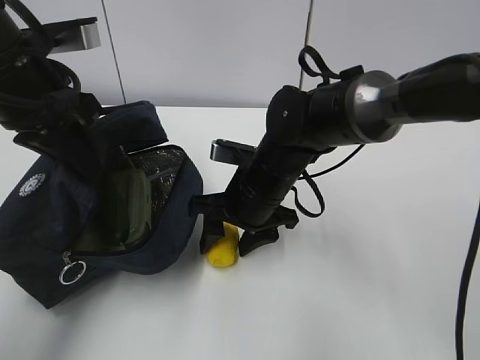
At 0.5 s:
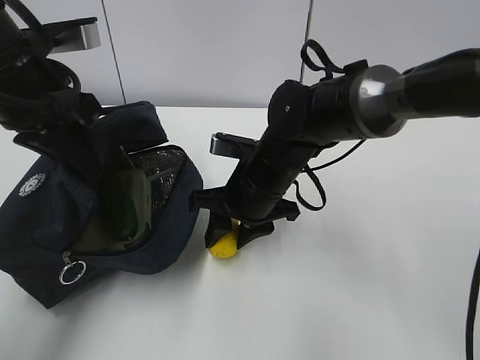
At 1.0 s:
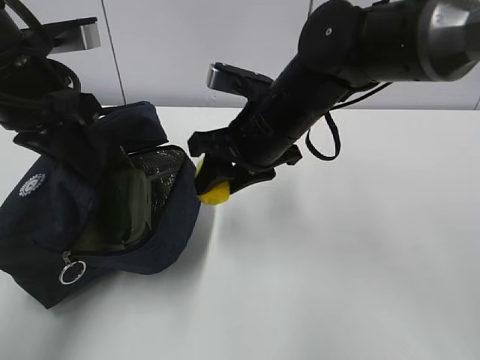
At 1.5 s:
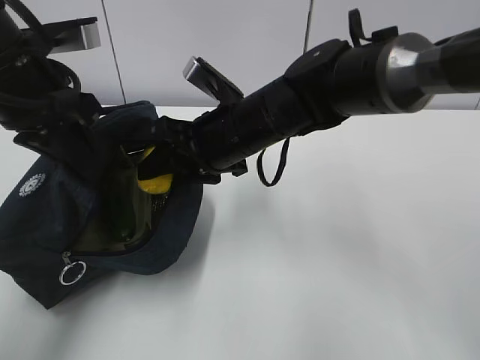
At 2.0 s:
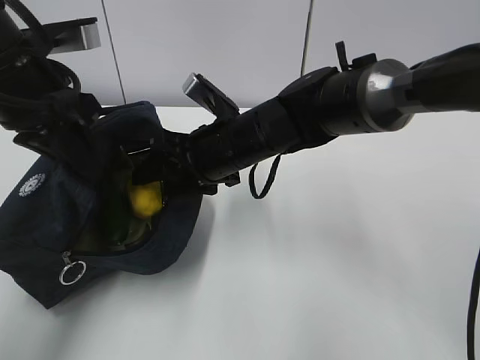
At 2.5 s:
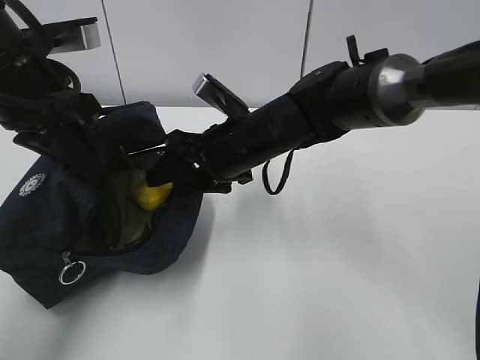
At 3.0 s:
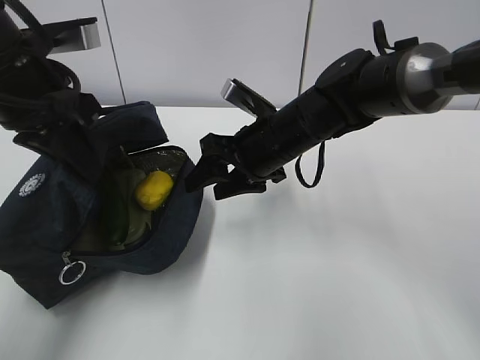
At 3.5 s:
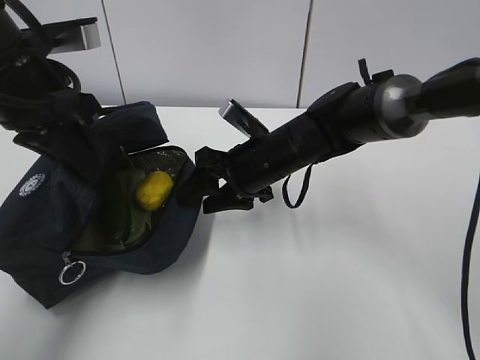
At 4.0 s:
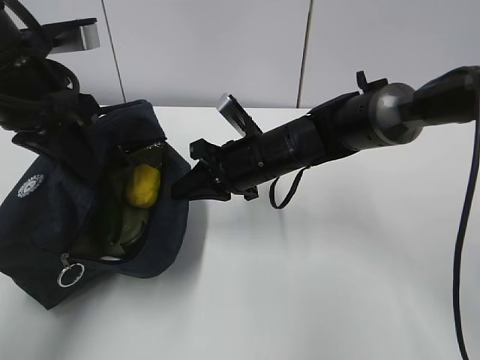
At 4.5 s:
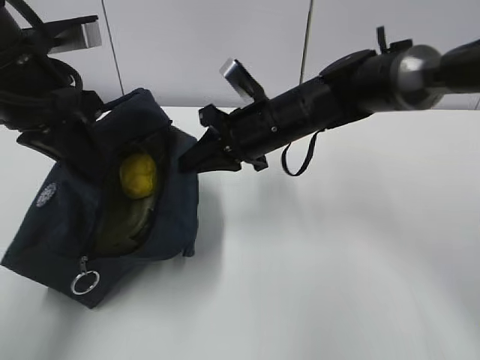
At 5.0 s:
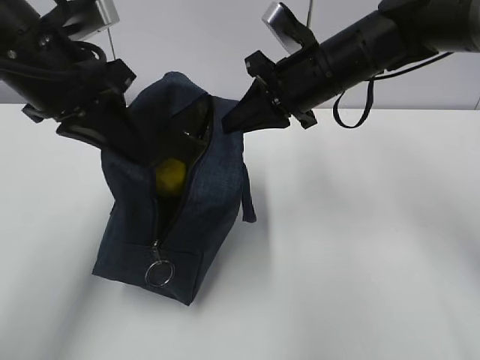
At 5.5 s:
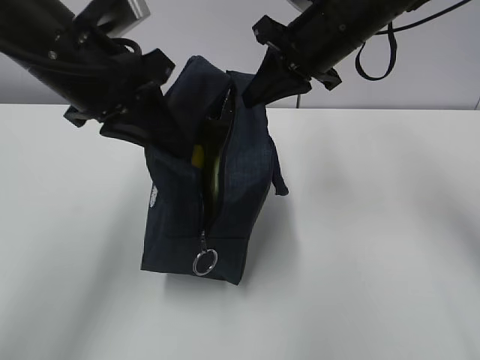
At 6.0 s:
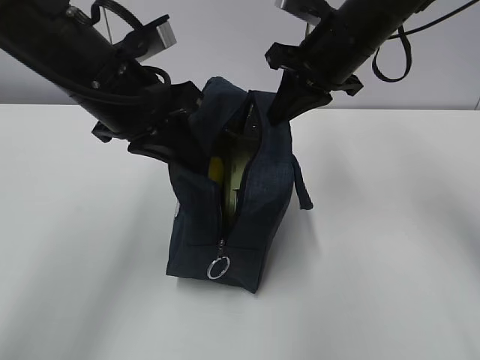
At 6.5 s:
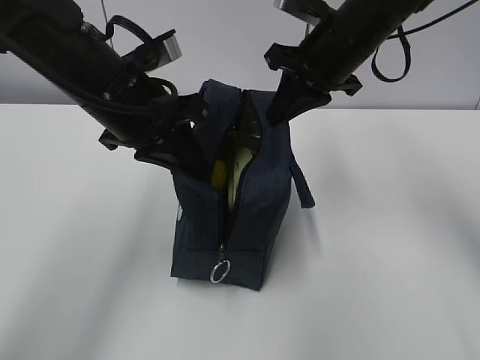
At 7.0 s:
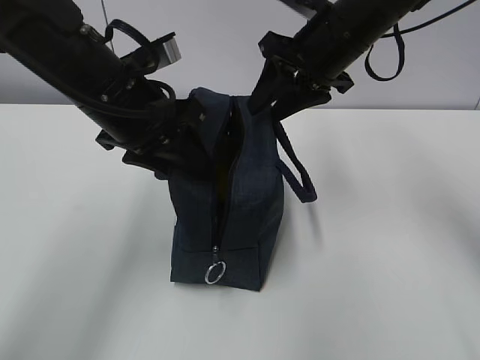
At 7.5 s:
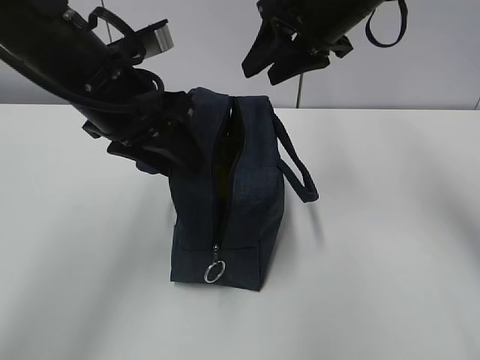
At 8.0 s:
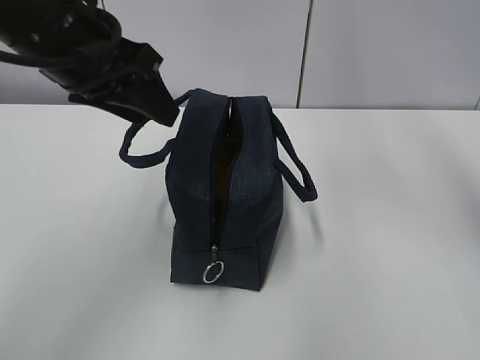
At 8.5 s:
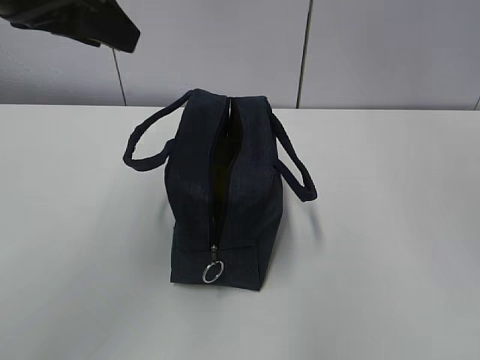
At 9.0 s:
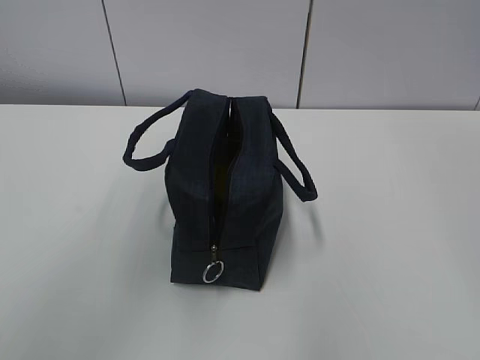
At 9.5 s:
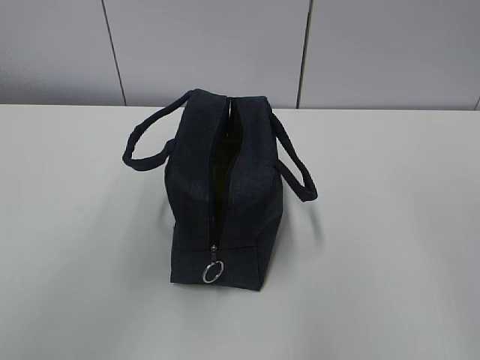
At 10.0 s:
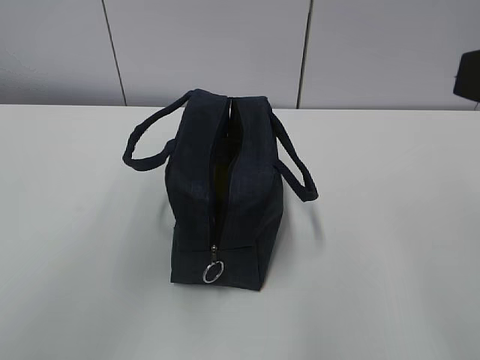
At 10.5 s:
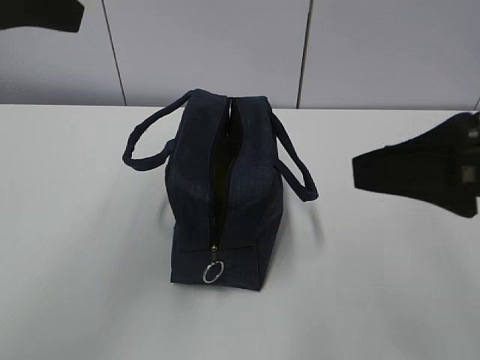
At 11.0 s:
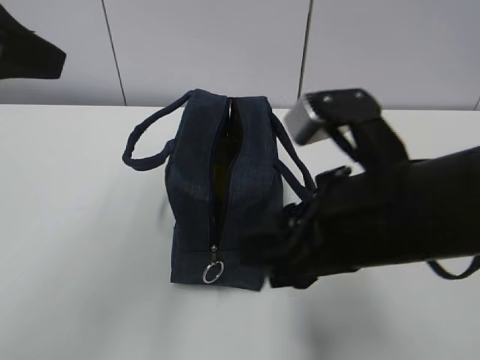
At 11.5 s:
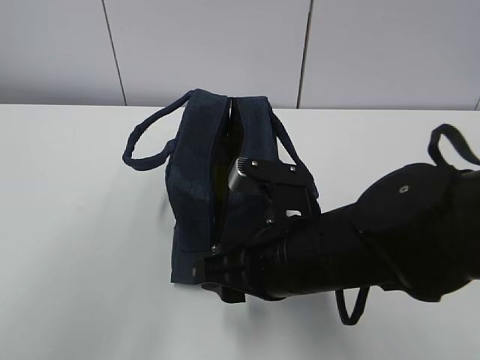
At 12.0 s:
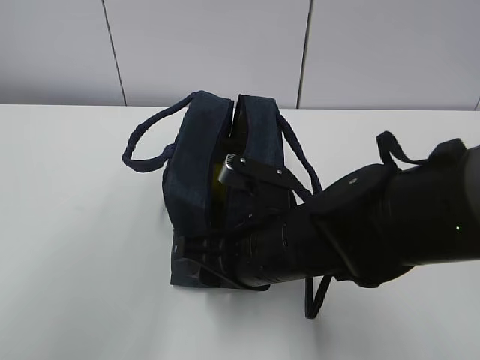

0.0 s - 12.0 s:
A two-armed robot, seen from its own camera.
2.0 s - 4.0 s: The right gripper moves about 5 cm, and closes its fingers.
4.0 s - 6.0 s: The left gripper heads to the right, covering roughly 5 cm. The right gripper shifts about 15 cm upward and to the right.
6.0 s - 8.0 s: The right gripper shifts approximately 15 cm upward, and opens its fingers. Meanwhile the left gripper shifts roughly 5 cm upward, and opens its fingers.
8.0 s - 10.0 s: The left gripper moves upward and backward, some 10 cm; the right gripper heads backward, covering roughly 30 cm.
10.0 s - 12.0 s: The right gripper heads downward, to the left and forward, covering about 30 cm. Meanwhile the left gripper travels backward by roughly 10 cm.

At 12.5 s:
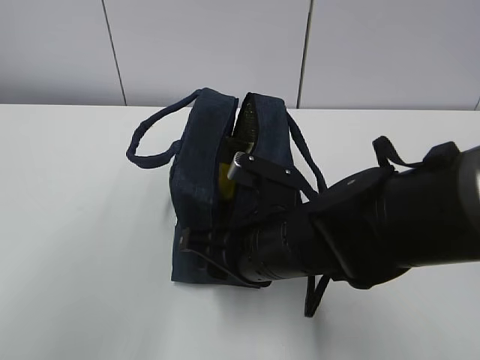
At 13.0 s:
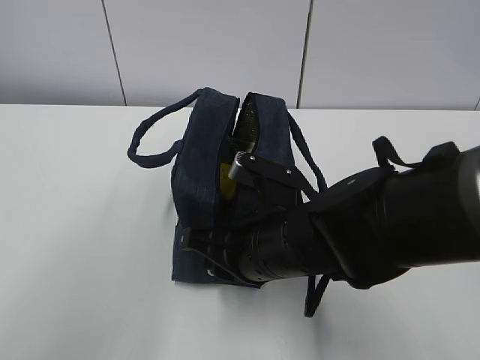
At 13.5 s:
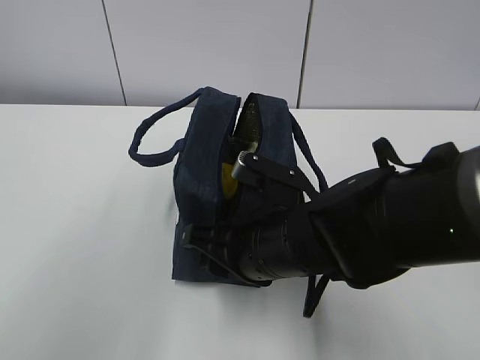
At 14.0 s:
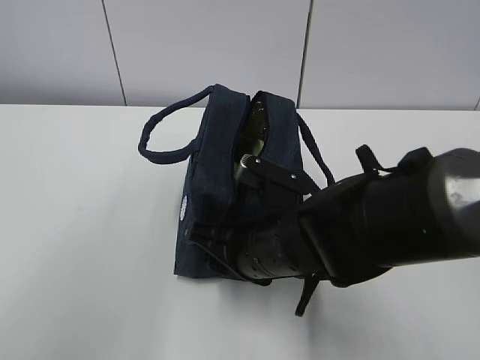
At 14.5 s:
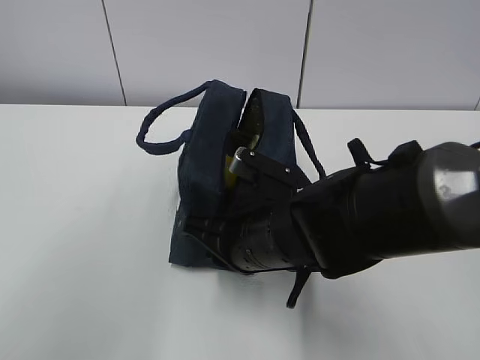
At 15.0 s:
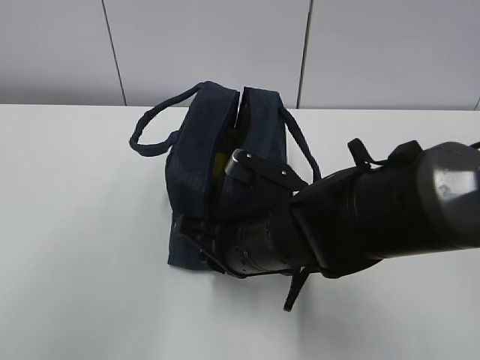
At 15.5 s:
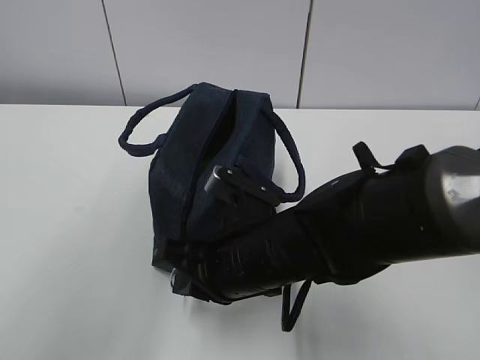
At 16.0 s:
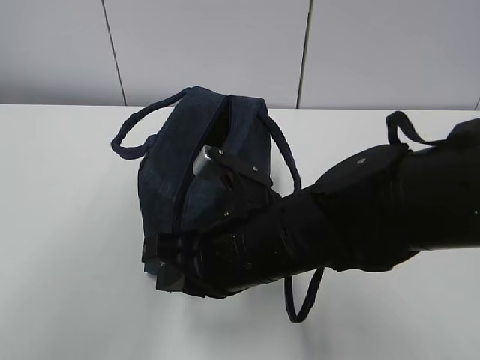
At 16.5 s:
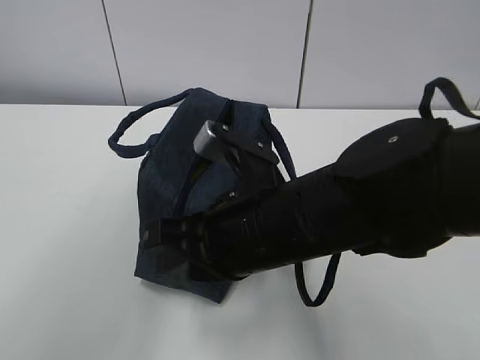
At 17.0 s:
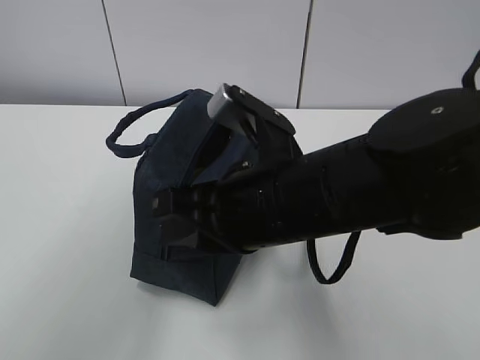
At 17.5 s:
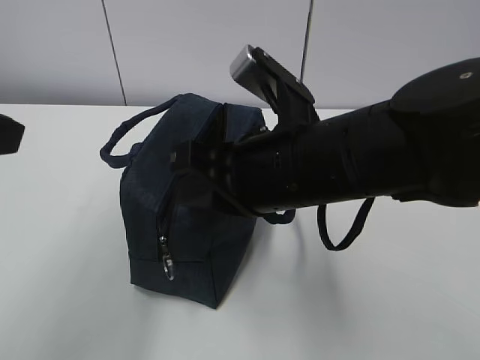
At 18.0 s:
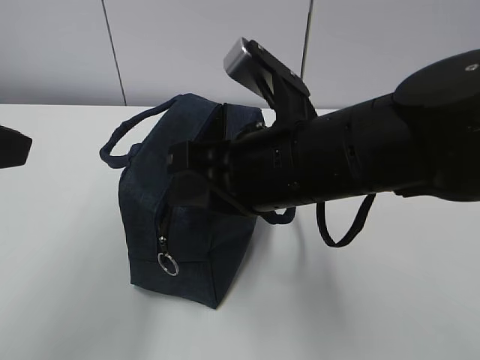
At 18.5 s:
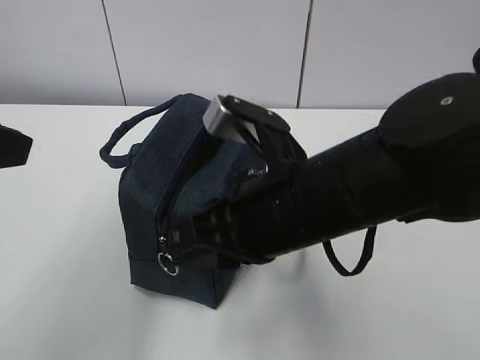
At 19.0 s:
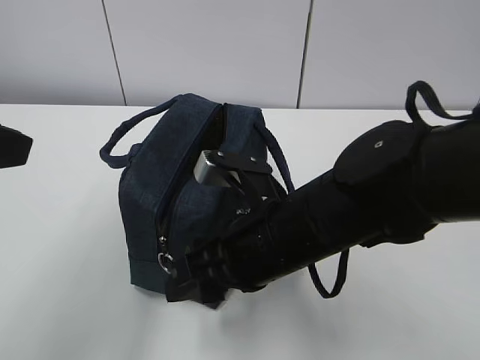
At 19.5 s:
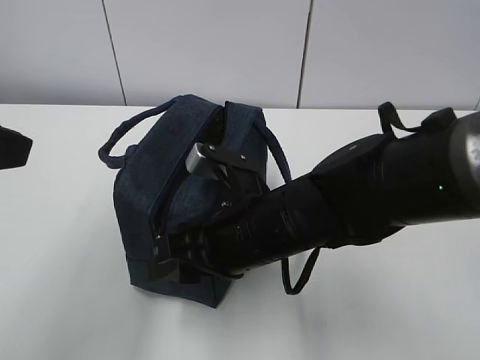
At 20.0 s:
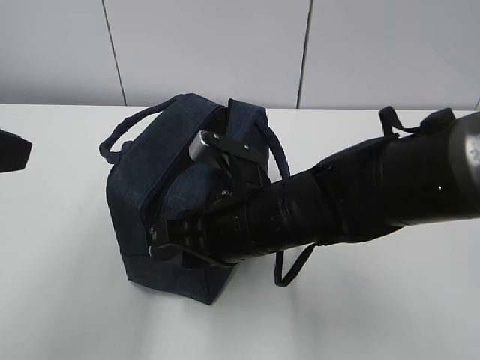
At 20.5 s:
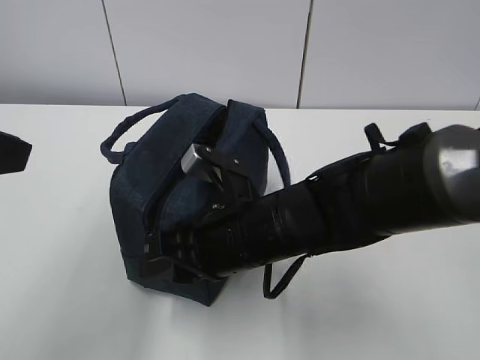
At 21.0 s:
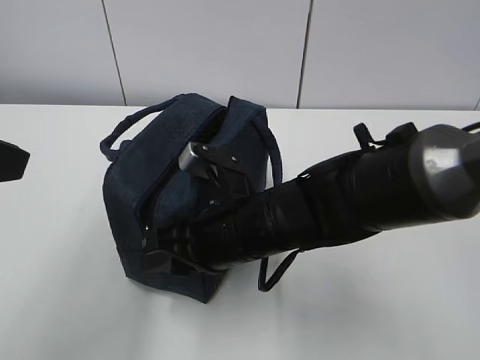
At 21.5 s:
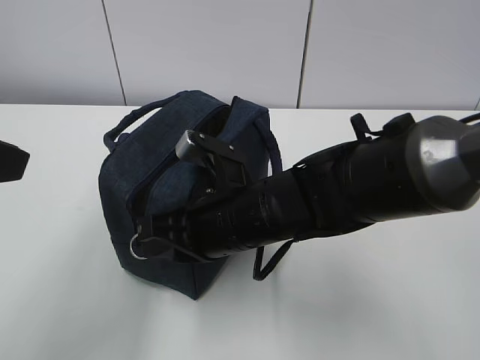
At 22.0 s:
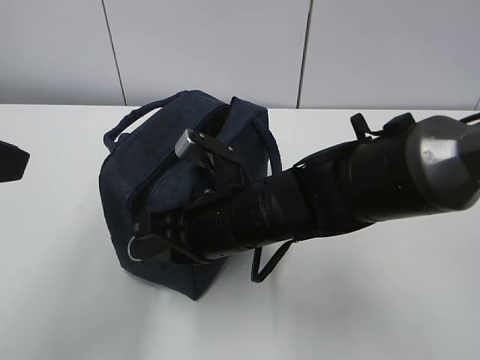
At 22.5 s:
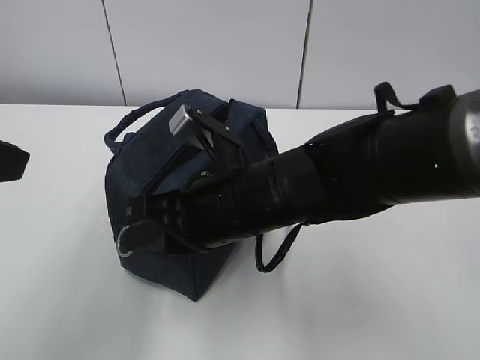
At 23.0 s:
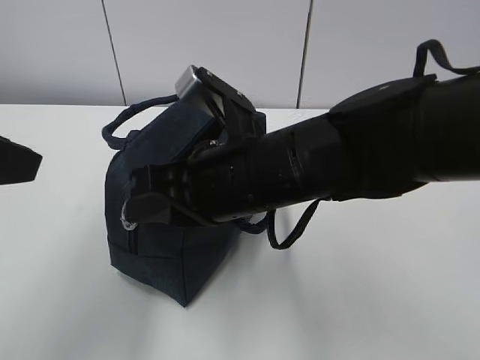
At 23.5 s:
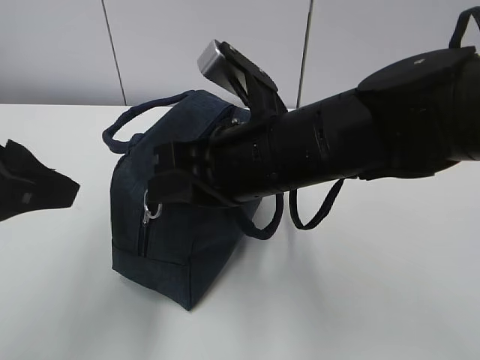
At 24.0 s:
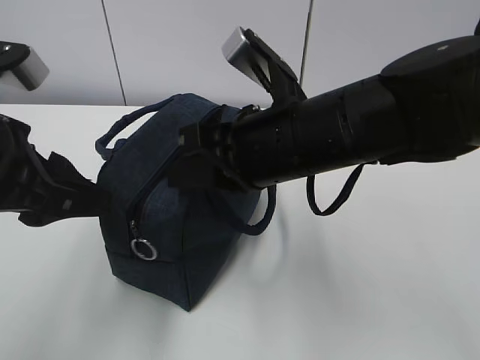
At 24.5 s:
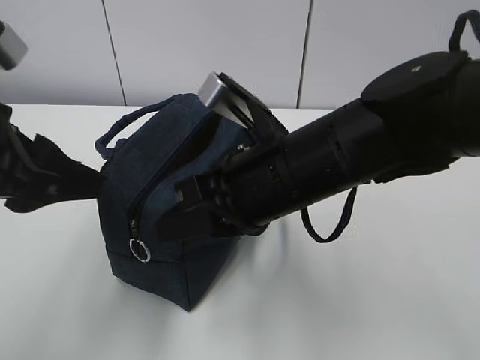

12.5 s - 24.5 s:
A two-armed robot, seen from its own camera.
Step, 12.5 s - 19.0 s: Grab the lunch bag with your left hand.
Step, 19.5 s - 22.0 s: Grab the lunch bag with your right hand.
Step, 22.5 s - 23.5 s: Stand the lunch bag upright with your right hand.
12.5 s - 14.5 s: The right gripper closes.
14.5 s - 16.5 s: The right gripper shifts some 5 cm upward.
16.5 s - 18.5 s: The left gripper is displaced downward by about 5 cm.
18.5 s - 20.5 s: The right gripper heads downward, covering some 10 cm.
20.5 s - 22.5 s: The right gripper closes its fingers.
22.5 s - 24.5 s: The left gripper shifts by about 5 cm. Meanwhile the right gripper changes place by some 5 cm.

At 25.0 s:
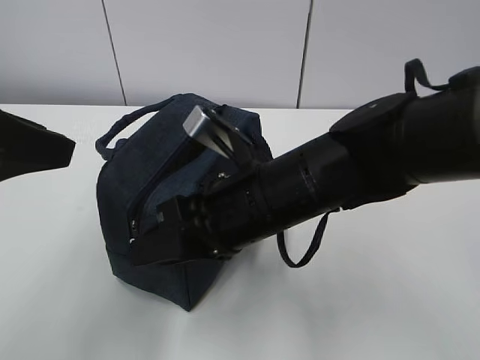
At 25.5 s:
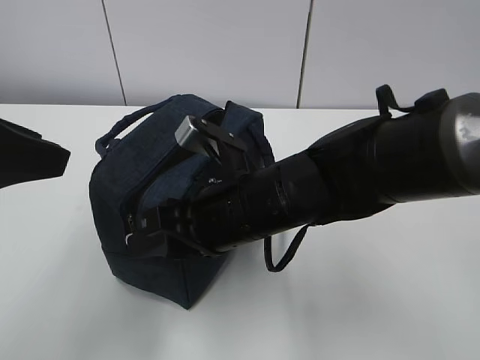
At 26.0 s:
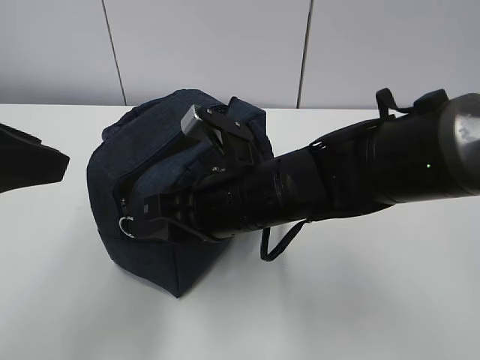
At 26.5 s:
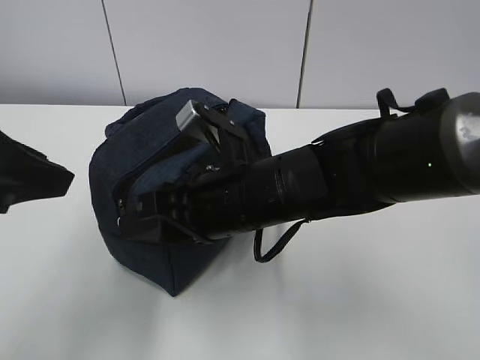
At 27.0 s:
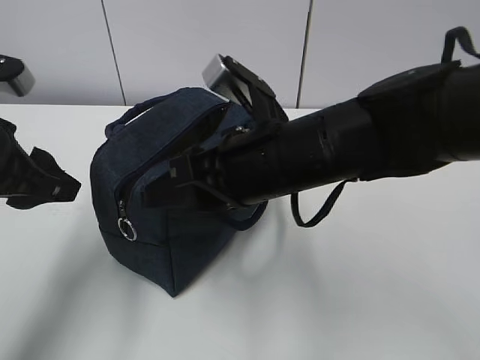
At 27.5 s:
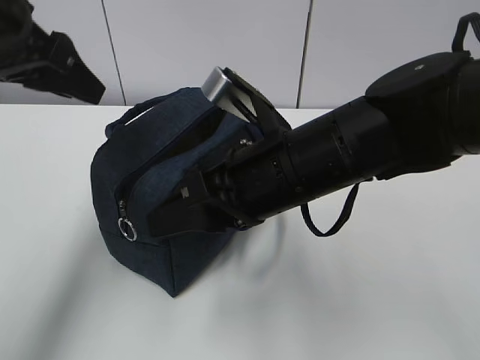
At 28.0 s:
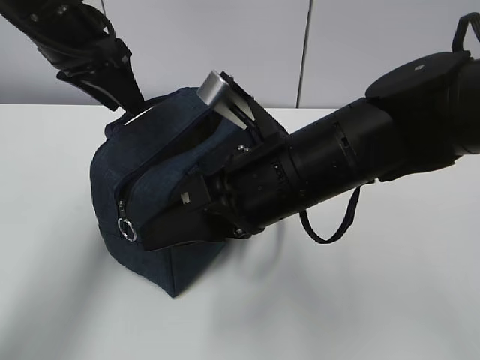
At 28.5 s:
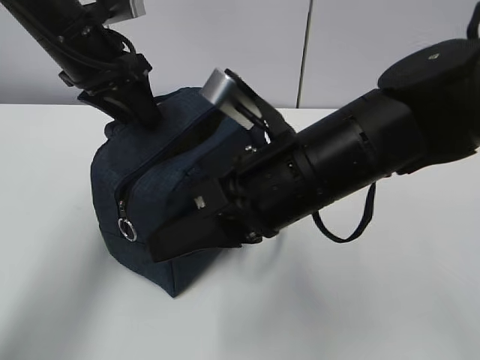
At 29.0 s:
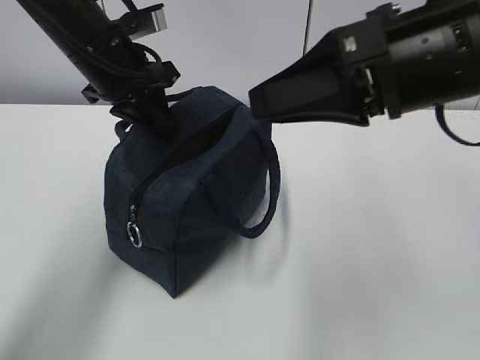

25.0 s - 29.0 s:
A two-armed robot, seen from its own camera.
25.0 s - 27.0 s: The left gripper is displaced downward and forward by about 10 cm.
27.0 s - 29.0 s: The right gripper travels upward and to the right by approximately 15 cm. The left gripper shifts approximately 15 cm forward and to the right, and closes its fingers.
